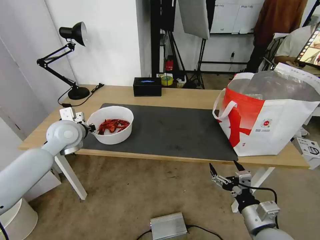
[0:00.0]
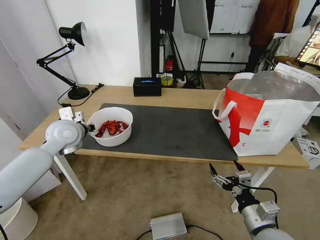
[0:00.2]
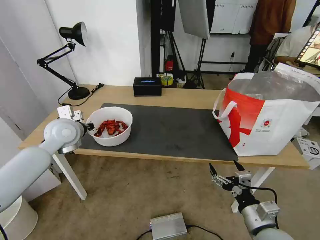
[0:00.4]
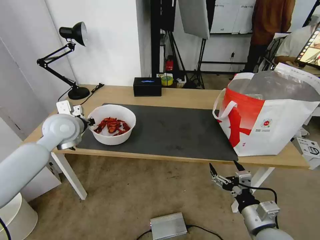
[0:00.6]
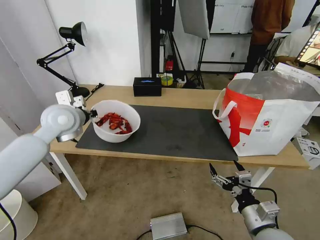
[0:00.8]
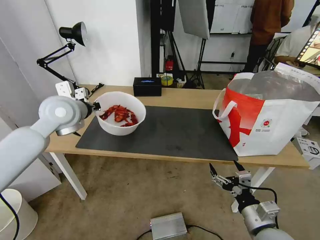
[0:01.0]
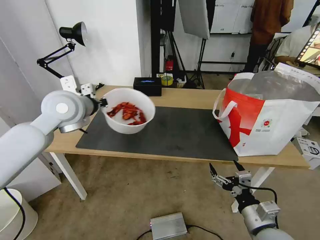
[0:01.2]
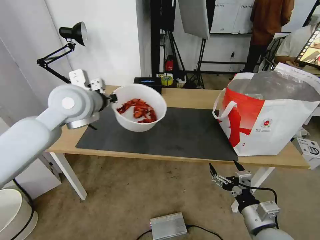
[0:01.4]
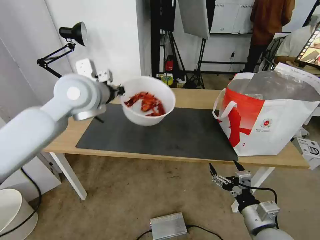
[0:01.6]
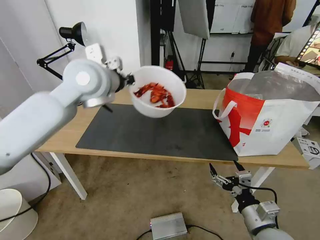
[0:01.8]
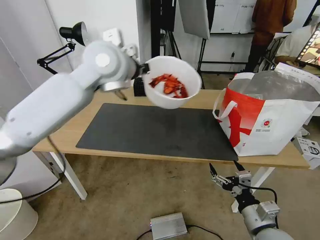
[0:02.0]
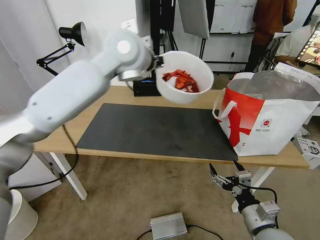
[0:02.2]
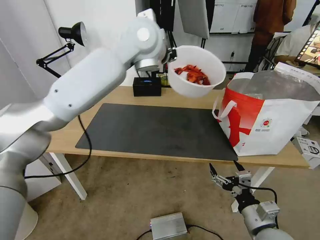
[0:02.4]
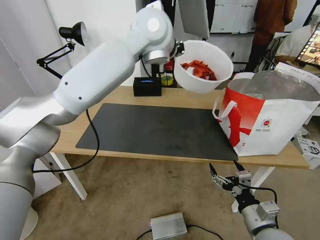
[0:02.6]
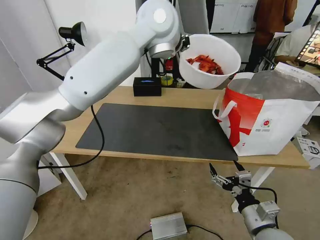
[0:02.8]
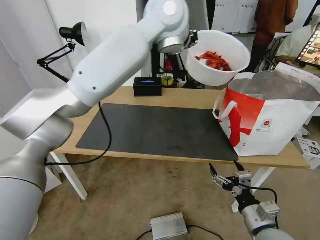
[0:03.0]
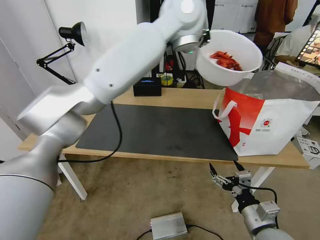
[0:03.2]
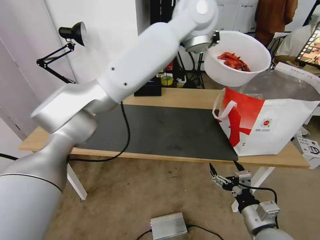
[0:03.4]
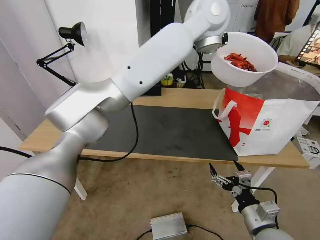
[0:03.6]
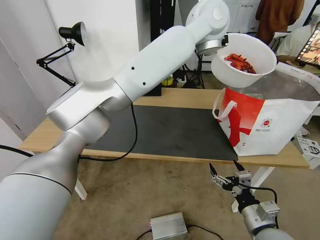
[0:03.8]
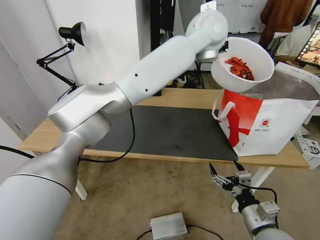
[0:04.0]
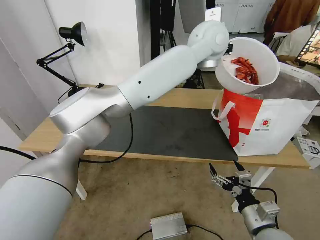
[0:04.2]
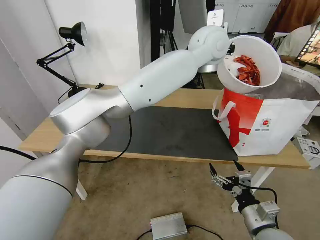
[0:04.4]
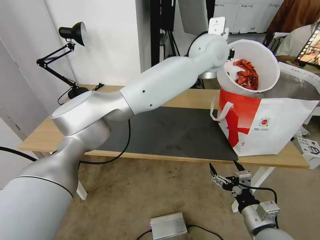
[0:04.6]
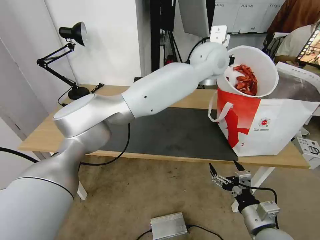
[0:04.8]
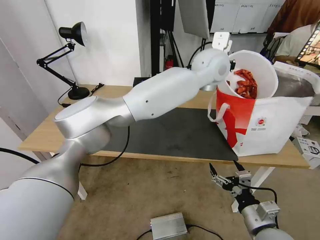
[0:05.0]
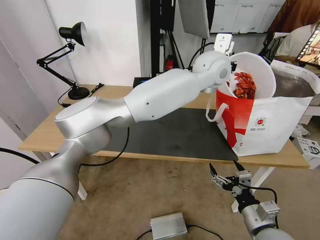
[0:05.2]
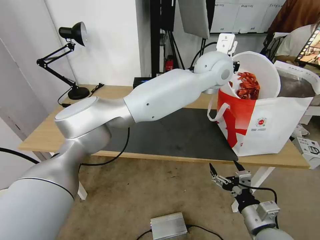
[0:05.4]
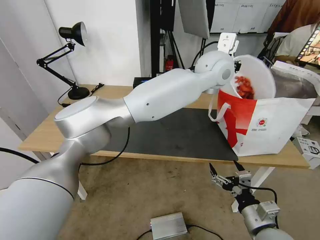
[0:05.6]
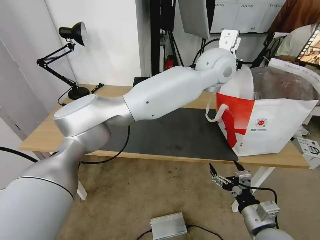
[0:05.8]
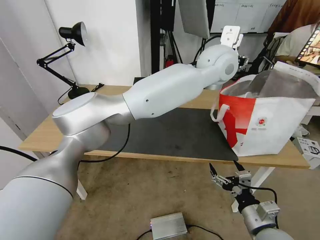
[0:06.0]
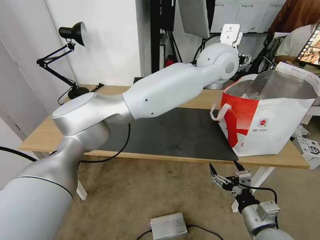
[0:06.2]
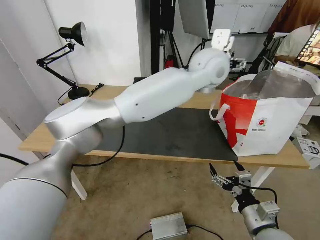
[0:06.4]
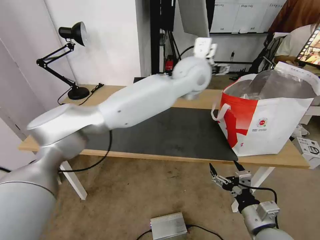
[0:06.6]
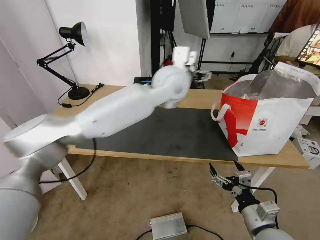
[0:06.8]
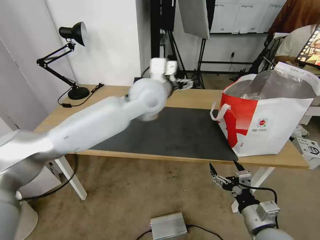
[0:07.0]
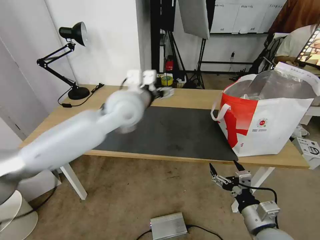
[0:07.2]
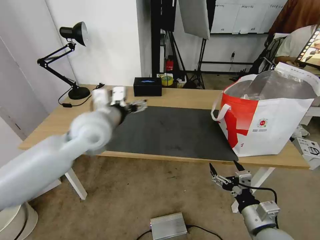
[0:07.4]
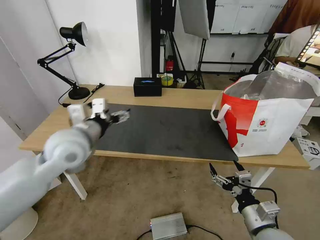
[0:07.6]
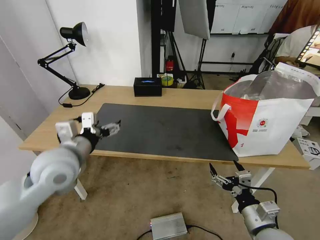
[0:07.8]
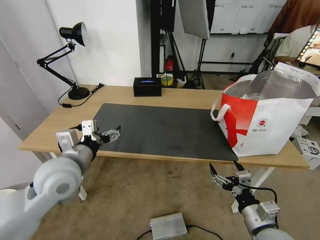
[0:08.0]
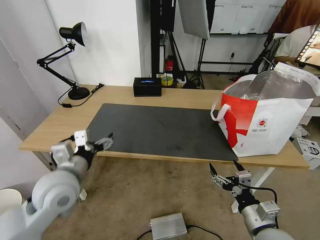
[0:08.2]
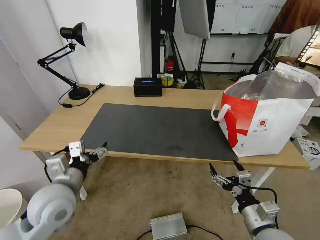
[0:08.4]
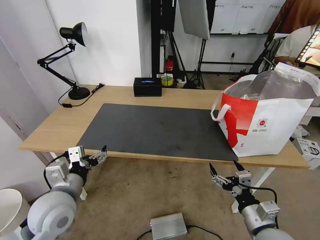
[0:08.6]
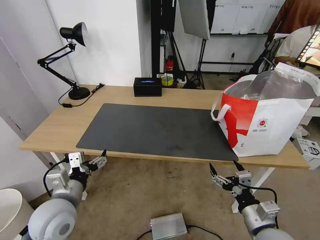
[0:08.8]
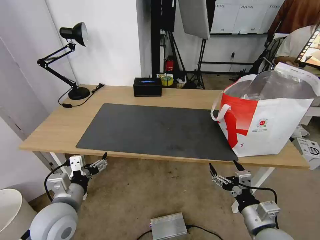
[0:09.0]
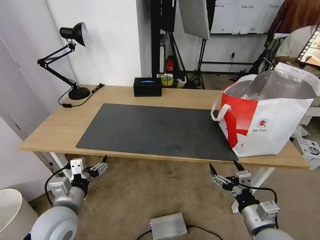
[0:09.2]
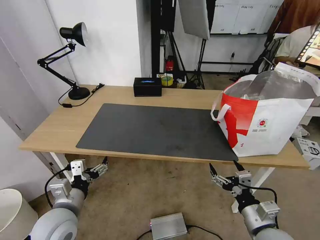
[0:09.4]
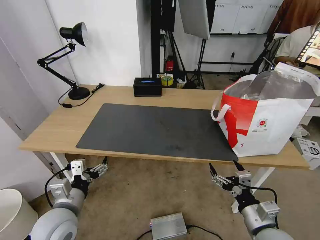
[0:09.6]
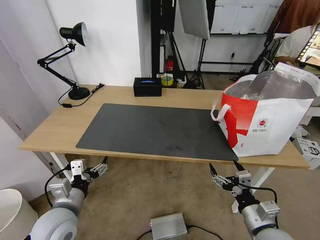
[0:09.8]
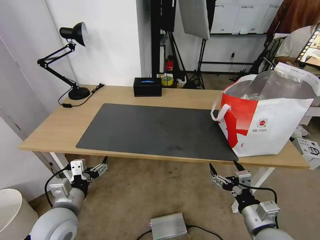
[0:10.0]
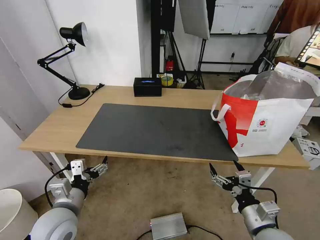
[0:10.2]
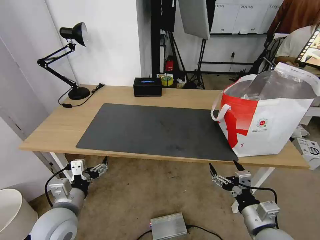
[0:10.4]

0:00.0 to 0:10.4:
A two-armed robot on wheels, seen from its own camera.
Task of the whole recording: Pick up the trash from the table and place it into the takeout bag.
0:00.0 to 0:01.4: The left gripper shifts approximately 15 cm upward and to the right.
0:01.4 to 0:03.0: The left gripper travels to the right, upward and forward by roughly 30 cm.
0:03.0 to 0:04.4: The left gripper shifts about 10 cm to the right and downward.
0:04.4 to 0:06.0: The left gripper opens.
0:06.0 to 0:07.4: The left gripper is displaced to the left by about 30 cm, and opens up.
0:07.4 to 0:09.0: The left gripper travels backward, downward and to the left by some 25 cm.
0:09.0 to 0:10.4: The grippers make only small movements.
